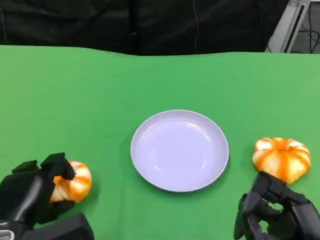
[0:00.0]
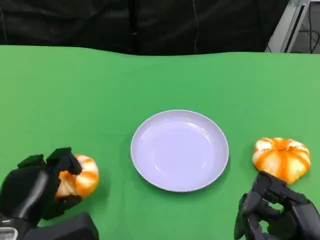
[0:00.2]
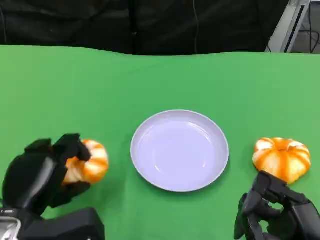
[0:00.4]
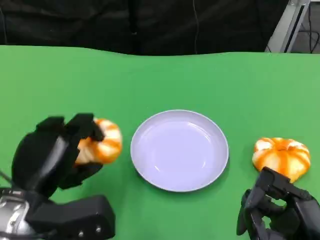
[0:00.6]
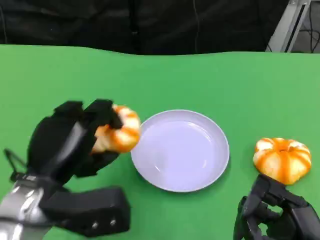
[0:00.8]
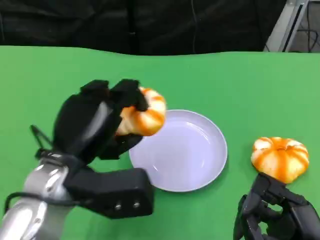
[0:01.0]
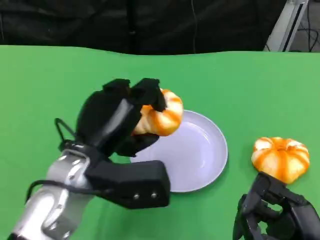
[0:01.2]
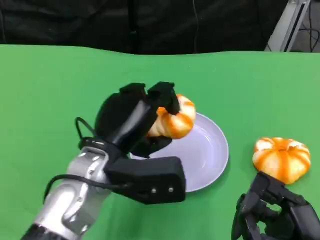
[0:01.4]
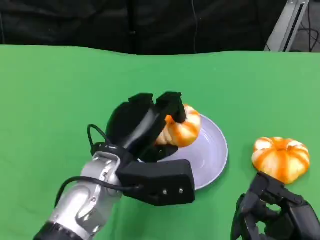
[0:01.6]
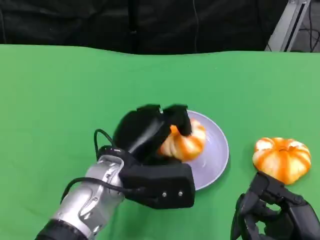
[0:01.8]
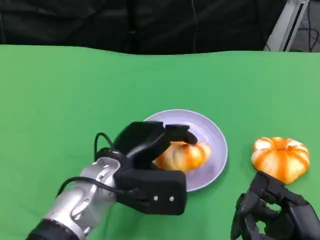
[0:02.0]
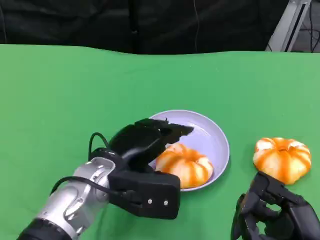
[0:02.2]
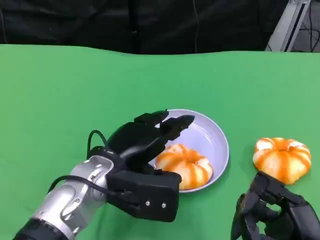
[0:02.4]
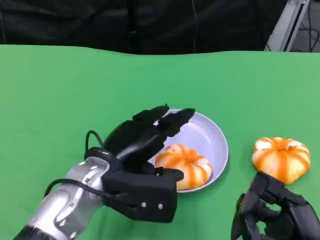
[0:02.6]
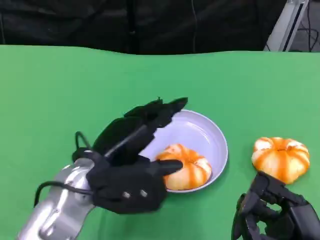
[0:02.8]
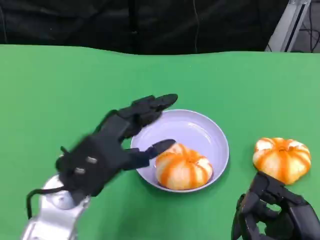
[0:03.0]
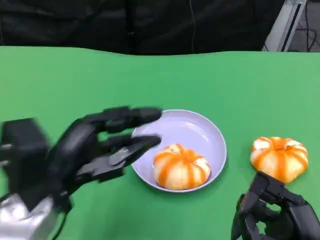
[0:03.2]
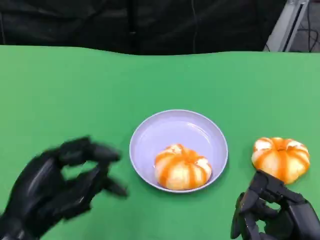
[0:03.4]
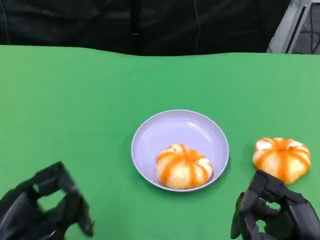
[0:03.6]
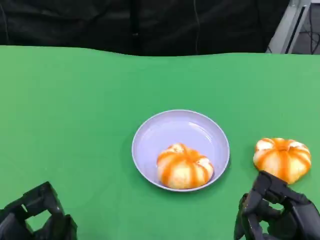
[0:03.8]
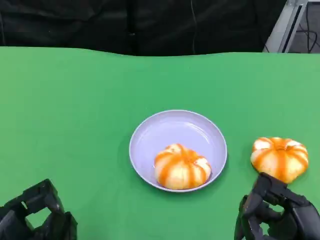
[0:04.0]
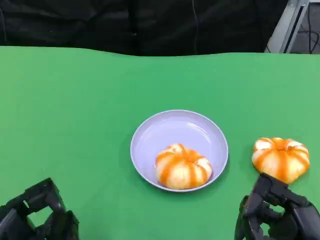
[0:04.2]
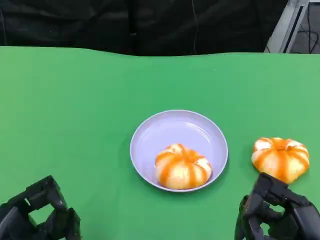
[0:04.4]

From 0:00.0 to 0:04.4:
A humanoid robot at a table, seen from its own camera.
Task of the whole recording: Grasp the bread from the table and place it into the plate.
From 0:00.0 to 0:01.4: The left hand heads to the right, upward and forward, covering approximately 15 cm.
From 0:01.4 to 0:03.0: The left hand shifts by some 5 cm.
From 0:03.0 to 0:04.4: The left hand is displaced backward, to the left and downward by approximately 15 cm.

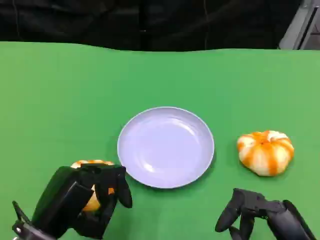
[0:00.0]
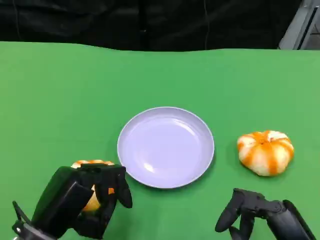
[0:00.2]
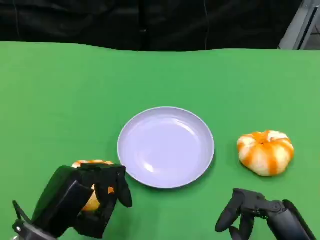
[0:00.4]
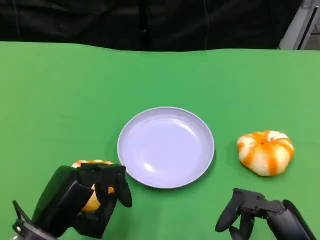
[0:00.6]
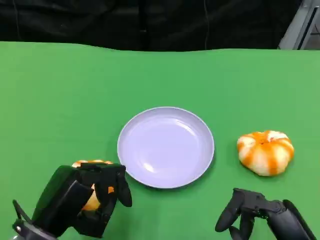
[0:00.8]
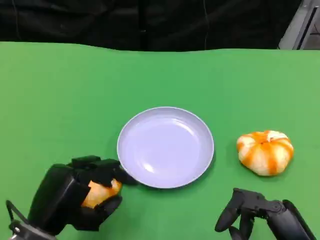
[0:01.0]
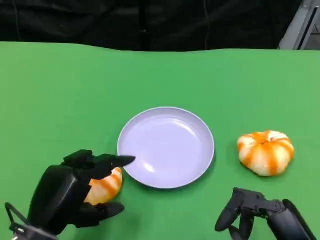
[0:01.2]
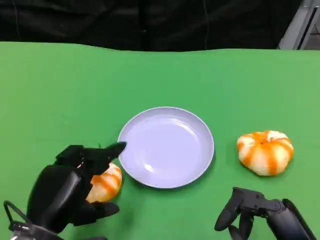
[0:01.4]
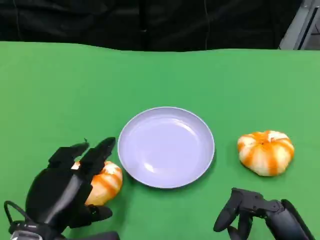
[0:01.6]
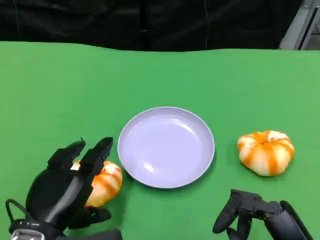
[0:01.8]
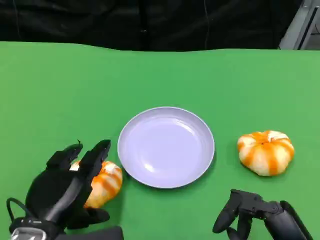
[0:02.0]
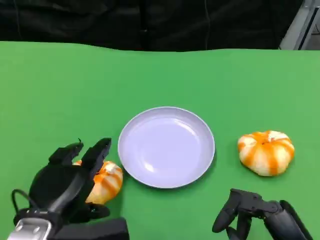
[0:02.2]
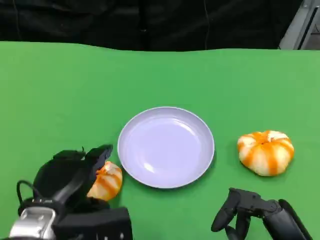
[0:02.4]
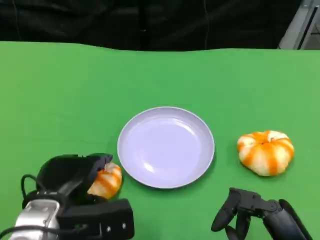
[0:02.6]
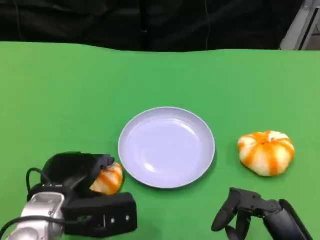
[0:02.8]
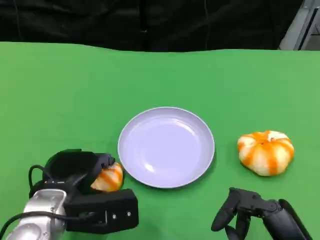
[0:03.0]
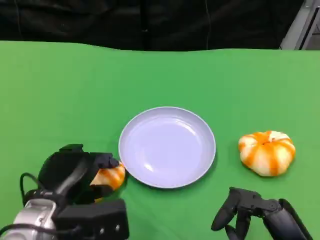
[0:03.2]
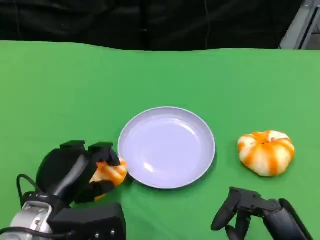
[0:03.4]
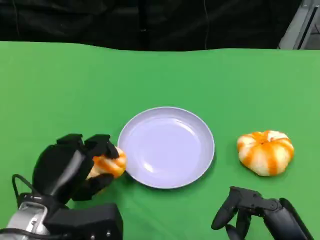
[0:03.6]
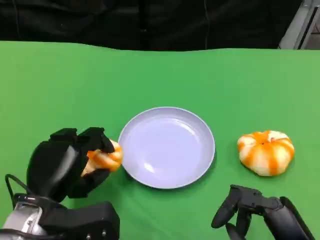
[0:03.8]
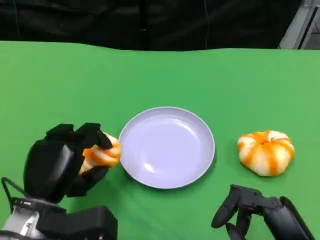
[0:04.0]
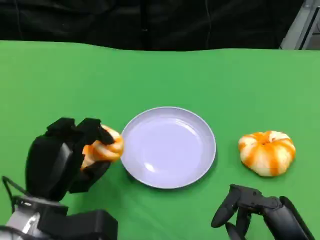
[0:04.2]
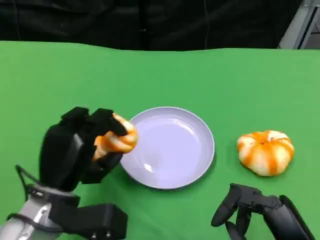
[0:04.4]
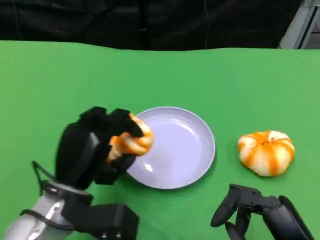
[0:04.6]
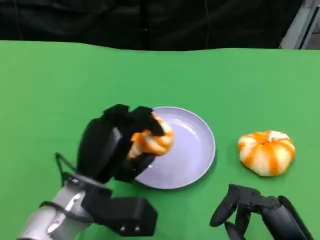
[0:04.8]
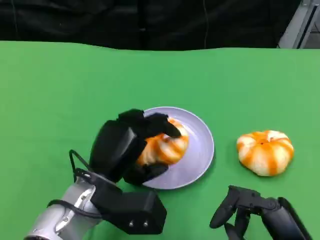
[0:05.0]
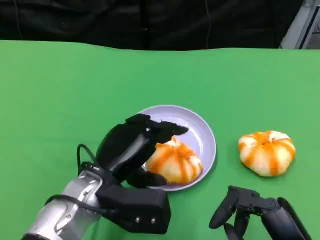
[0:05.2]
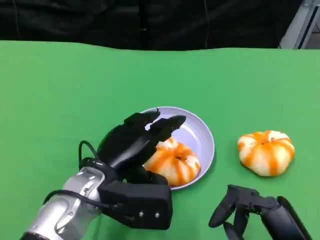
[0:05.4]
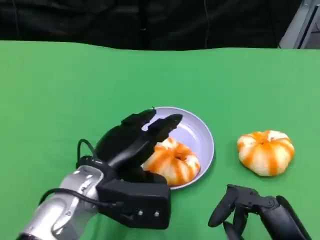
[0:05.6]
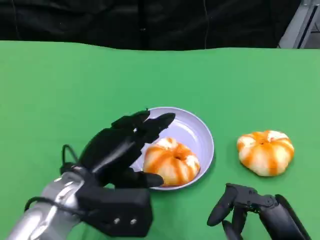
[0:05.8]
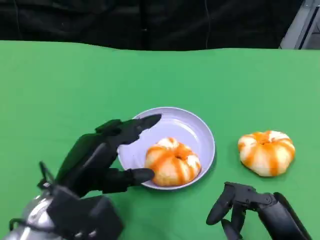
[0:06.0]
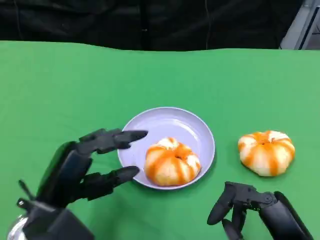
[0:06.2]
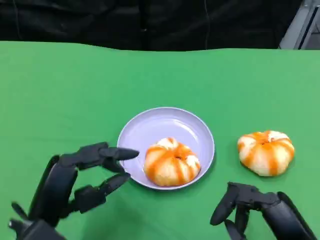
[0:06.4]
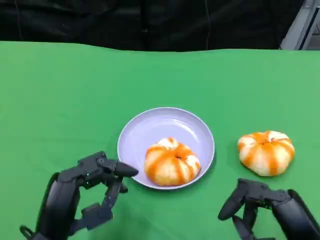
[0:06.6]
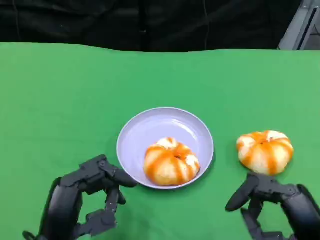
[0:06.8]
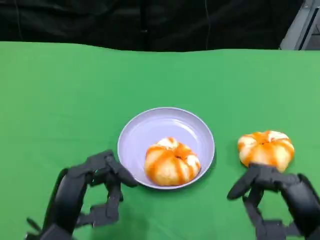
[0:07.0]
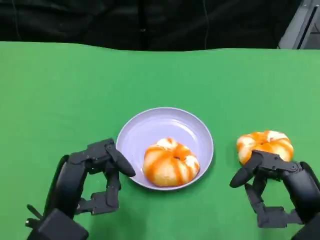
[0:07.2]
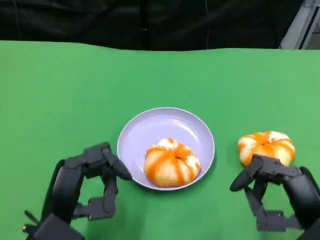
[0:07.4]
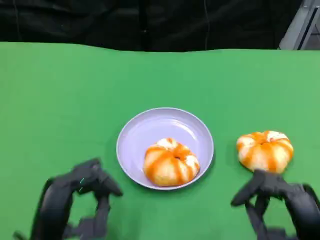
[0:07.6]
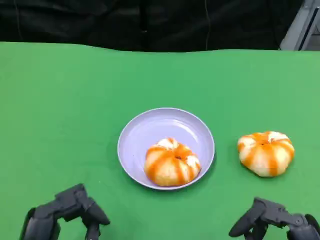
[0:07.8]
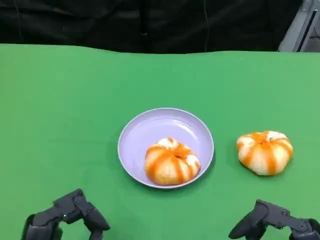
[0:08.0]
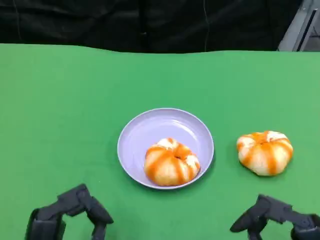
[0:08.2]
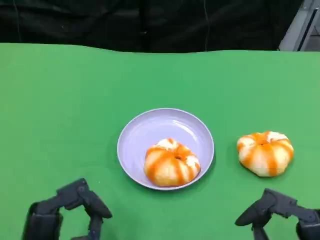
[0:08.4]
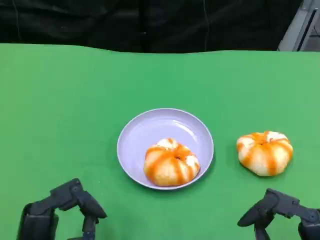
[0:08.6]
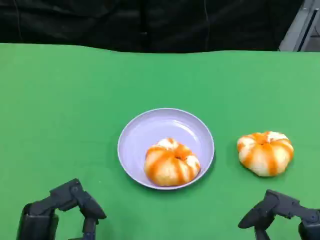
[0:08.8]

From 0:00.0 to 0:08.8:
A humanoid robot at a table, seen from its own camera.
Task of the whole recording: Grasp the bread from the table and place it into the plate.
From 0:01.4 to 0:03.0: The left hand moves forward, about 5 cm.
From 0:05.8 to 0:07.4: The left hand is displaced backward by approximately 5 cm.
From 0:07.4 to 0:08.8: The right hand heads backward, covering roughly 5 cm. Meanwhile the left hand ends up some 5 cm from where it was.

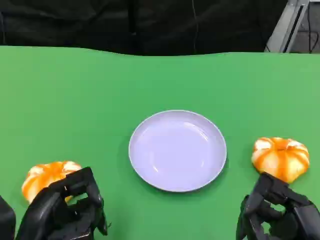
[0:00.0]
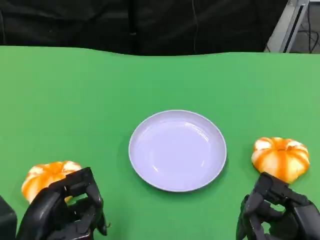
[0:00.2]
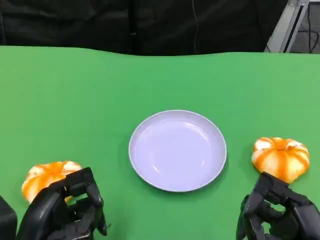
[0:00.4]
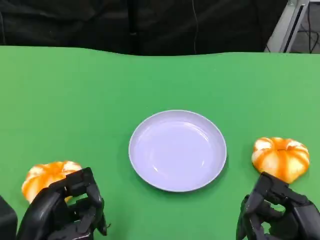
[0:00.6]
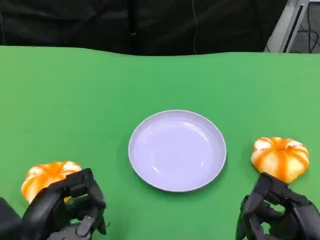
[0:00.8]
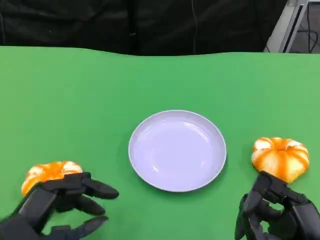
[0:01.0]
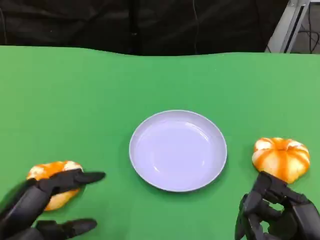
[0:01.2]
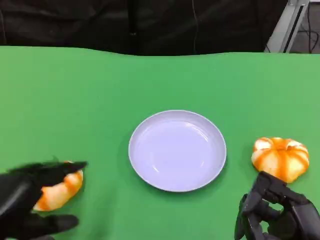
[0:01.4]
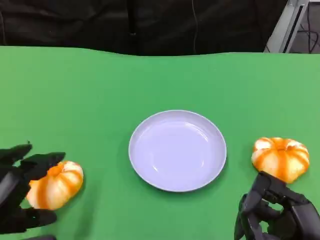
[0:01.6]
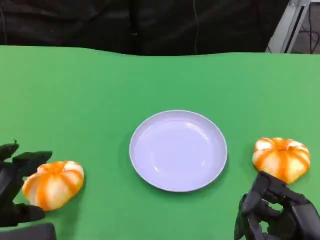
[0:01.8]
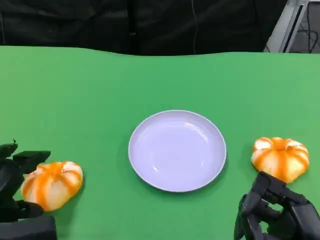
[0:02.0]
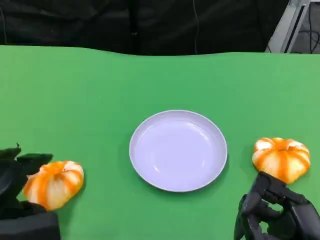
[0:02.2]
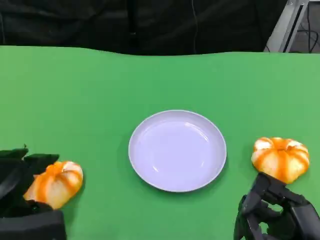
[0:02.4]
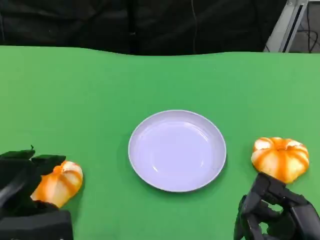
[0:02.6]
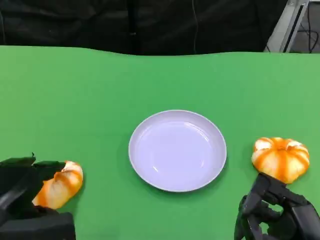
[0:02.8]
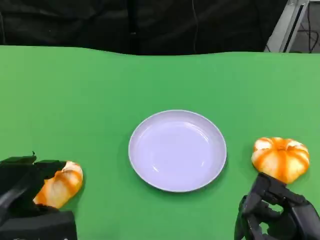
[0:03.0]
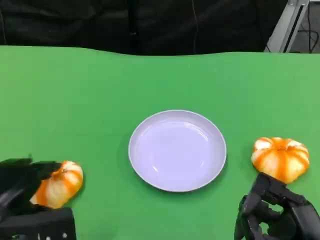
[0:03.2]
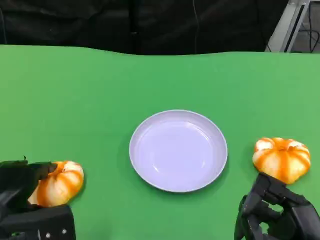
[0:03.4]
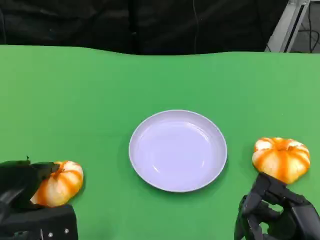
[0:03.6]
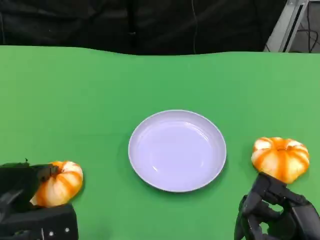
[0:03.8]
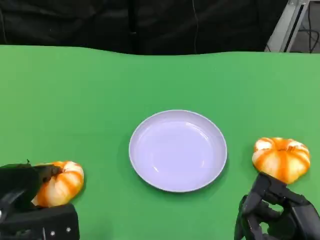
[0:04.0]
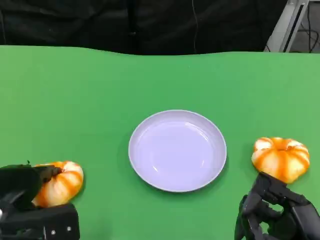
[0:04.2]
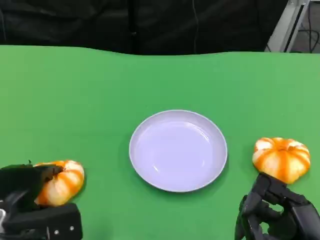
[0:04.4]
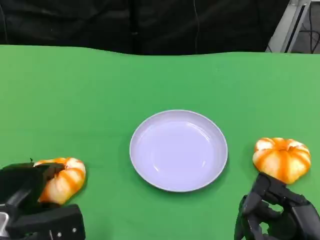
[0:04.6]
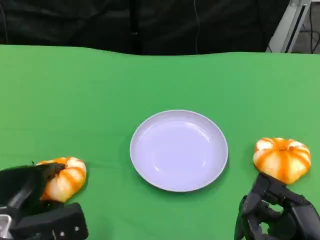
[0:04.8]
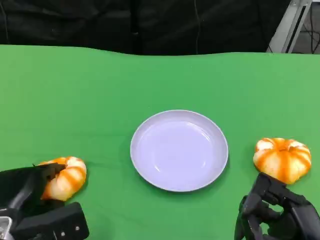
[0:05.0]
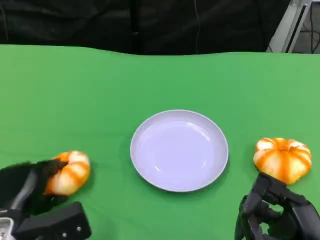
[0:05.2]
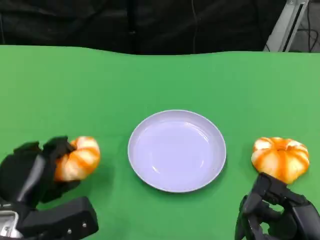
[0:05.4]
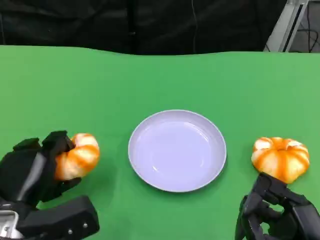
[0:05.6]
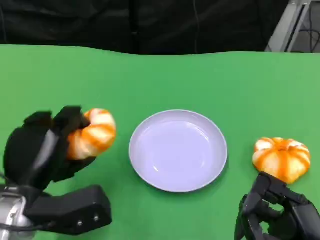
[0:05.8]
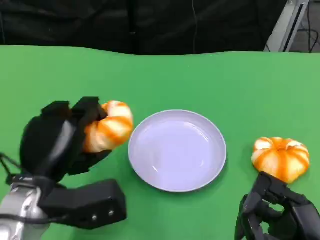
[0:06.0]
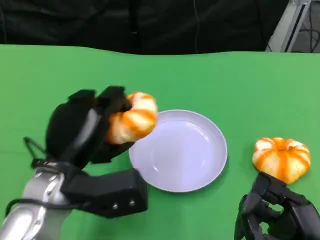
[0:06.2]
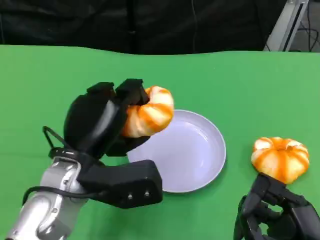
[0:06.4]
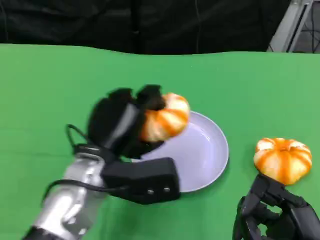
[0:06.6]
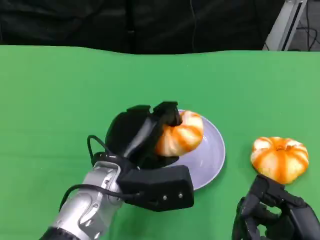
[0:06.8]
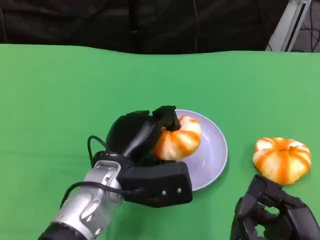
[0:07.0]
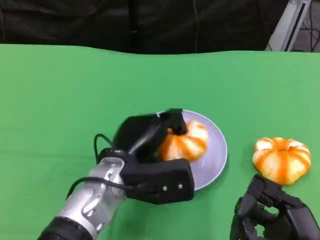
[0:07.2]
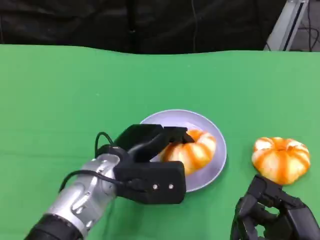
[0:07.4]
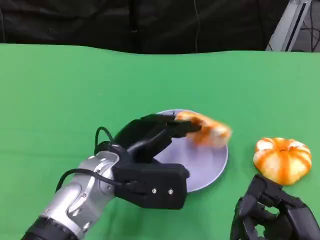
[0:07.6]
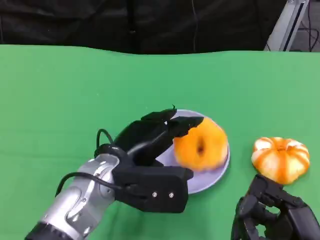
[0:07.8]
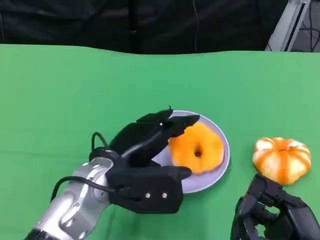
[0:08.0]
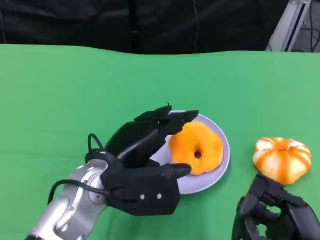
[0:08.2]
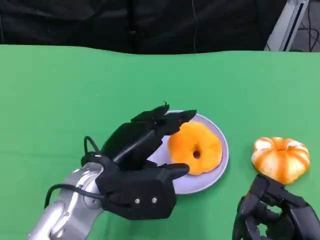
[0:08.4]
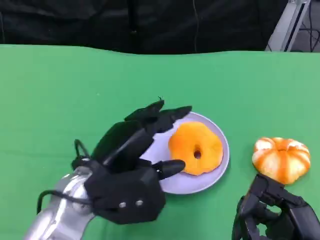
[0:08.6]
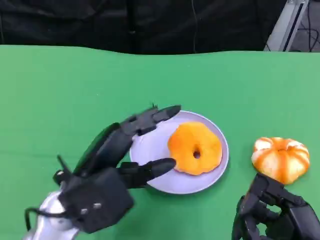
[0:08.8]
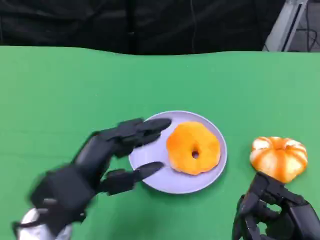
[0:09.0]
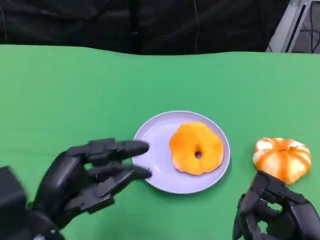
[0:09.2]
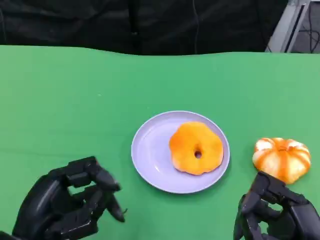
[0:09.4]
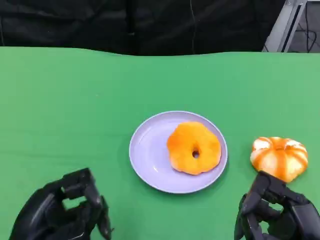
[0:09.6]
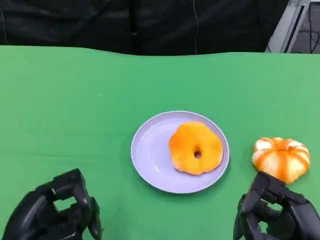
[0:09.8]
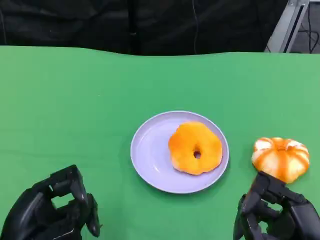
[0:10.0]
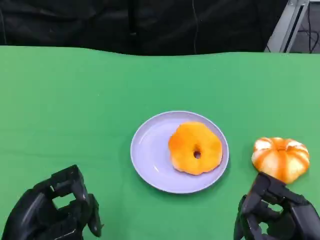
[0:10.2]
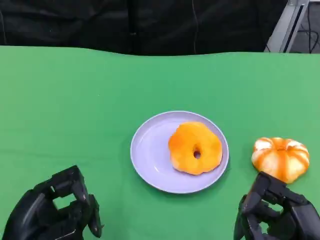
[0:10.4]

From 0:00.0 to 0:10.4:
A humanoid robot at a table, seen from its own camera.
Task of the whole recording: Grasp the bread from the table and place it into the plate.
From 0:00.0 to 0:01.4: The left hand is displaced upward by about 5 cm.
From 0:01.4 to 0:03.0: The left hand moves about 5 cm.
From 0:03.0 to 0:04.4: There are only small adjustments of the hands.
From 0:04.4 to 0:06.0: The left hand moves to the right and upward, roughly 10 cm.
From 0:06.0 to 0:07.4: The left hand moves to the right, approximately 10 cm.
From 0:07.4 to 0:09.0: The left hand shifts approximately 10 cm to the left and backward.
From 0:09.0 to 0:10.4: The left hand is displaced to the left and backward by some 5 cm.
